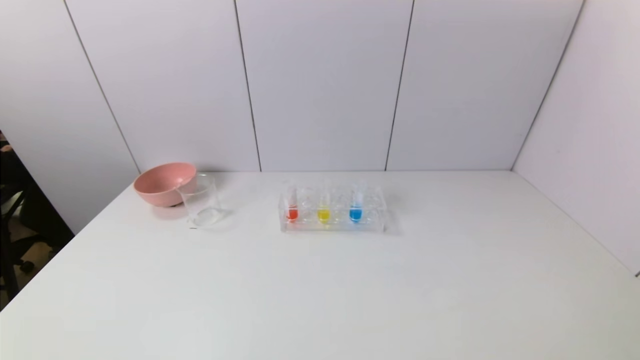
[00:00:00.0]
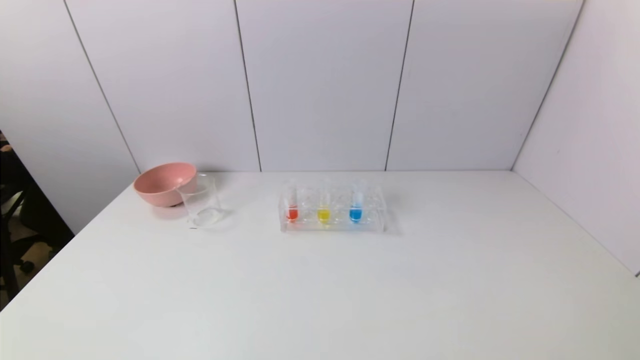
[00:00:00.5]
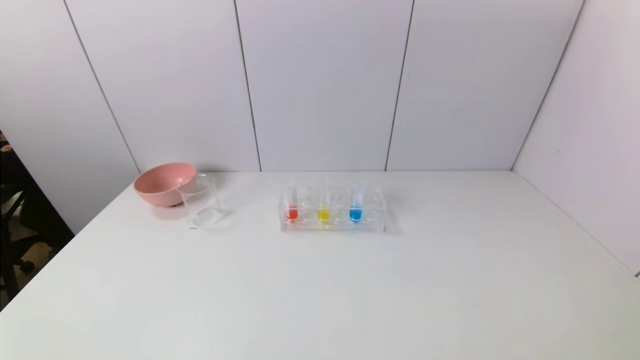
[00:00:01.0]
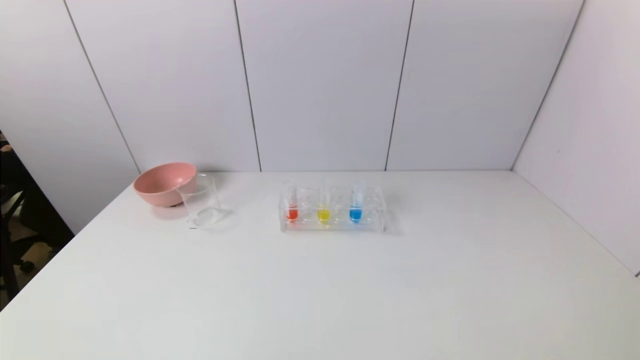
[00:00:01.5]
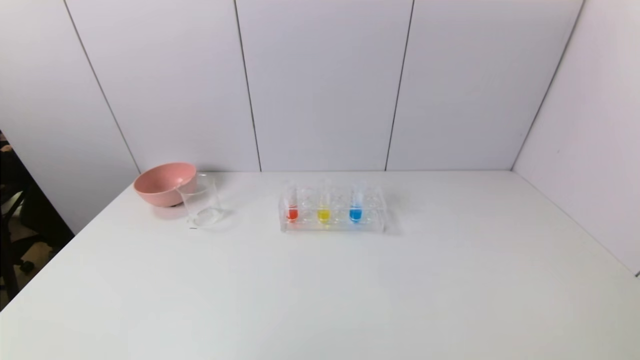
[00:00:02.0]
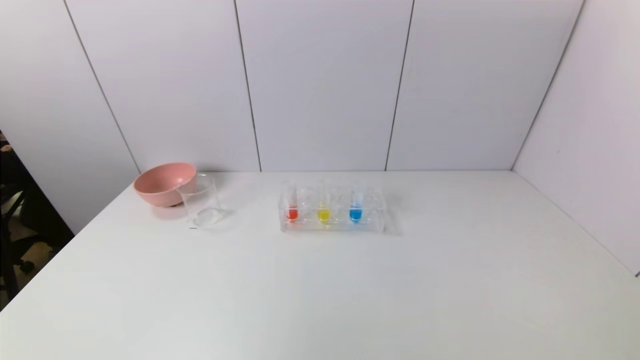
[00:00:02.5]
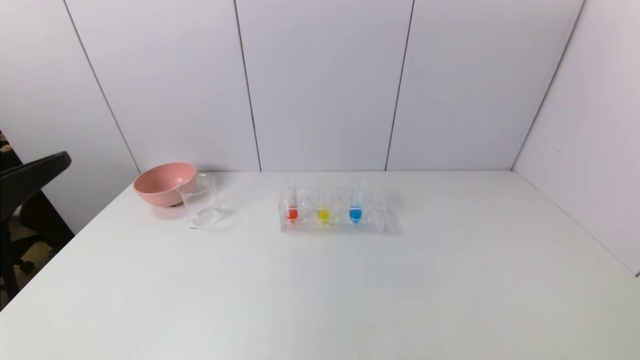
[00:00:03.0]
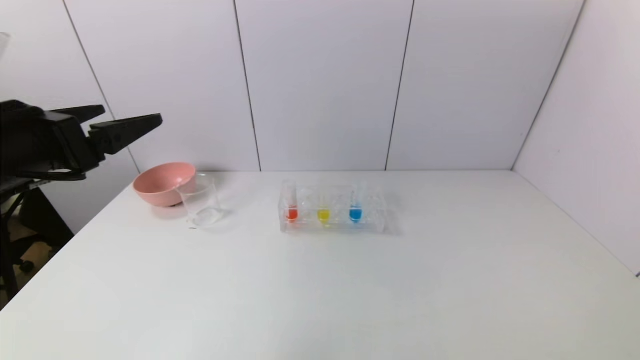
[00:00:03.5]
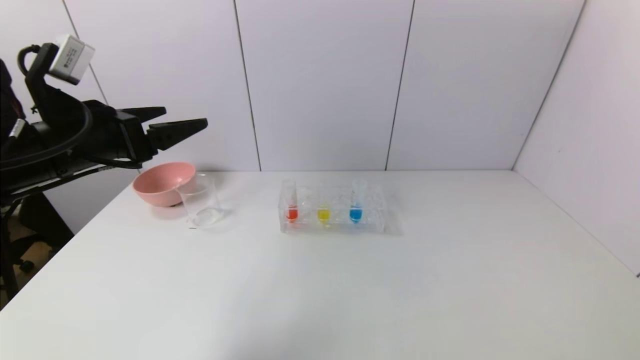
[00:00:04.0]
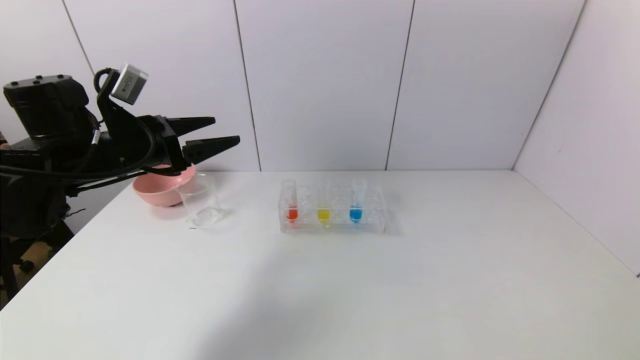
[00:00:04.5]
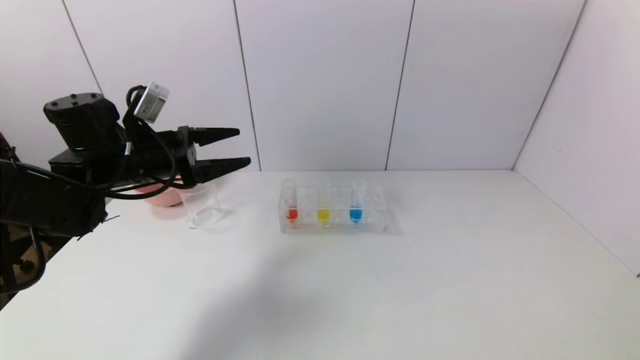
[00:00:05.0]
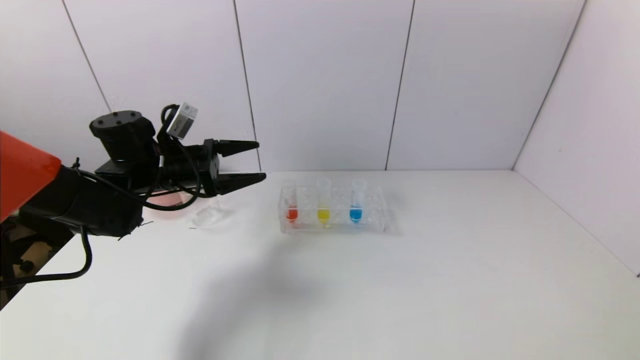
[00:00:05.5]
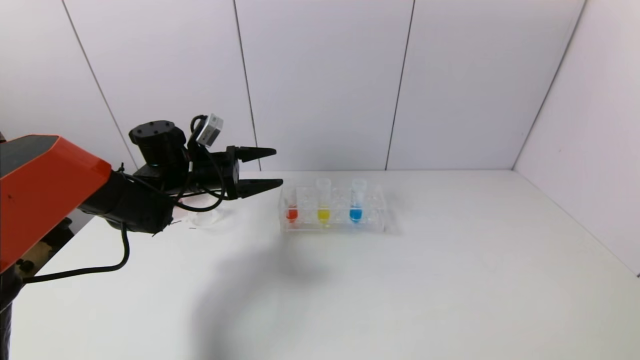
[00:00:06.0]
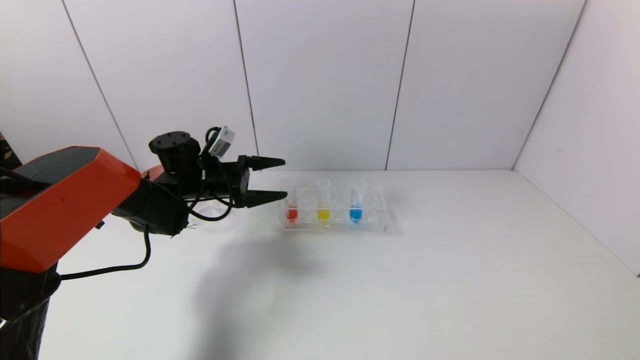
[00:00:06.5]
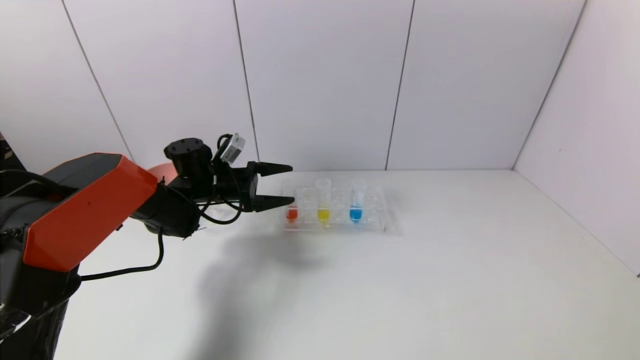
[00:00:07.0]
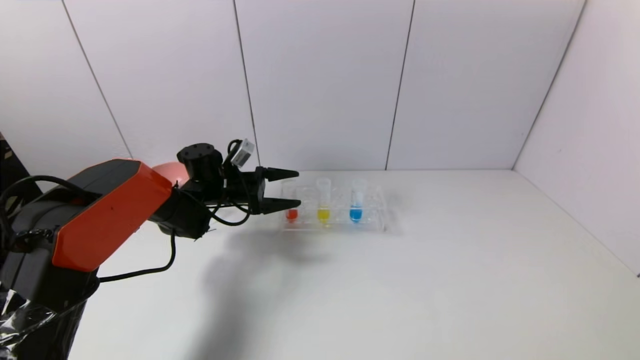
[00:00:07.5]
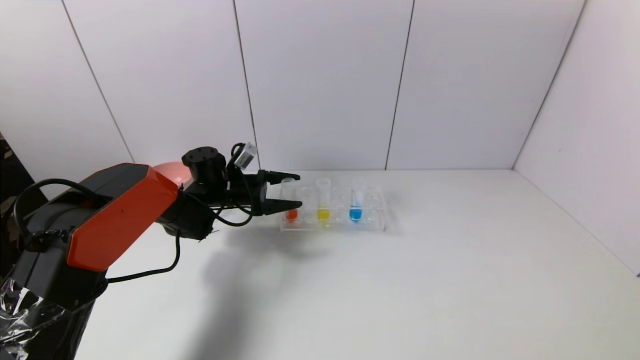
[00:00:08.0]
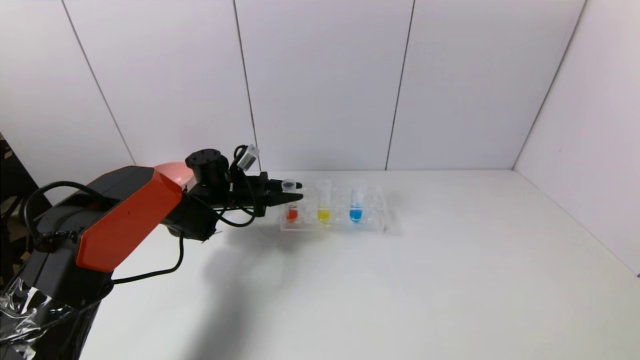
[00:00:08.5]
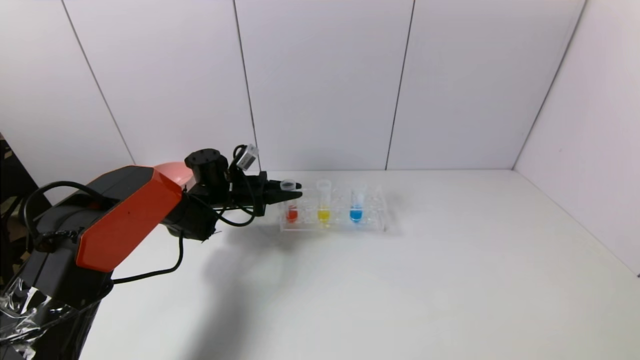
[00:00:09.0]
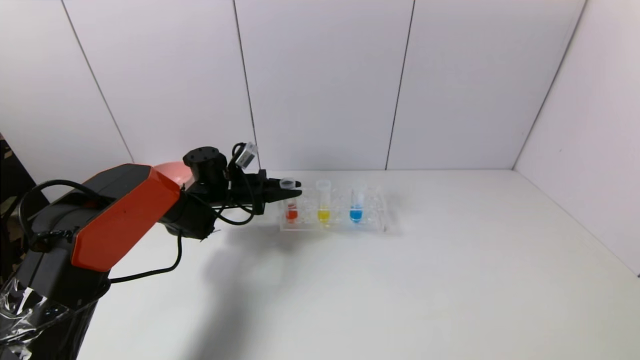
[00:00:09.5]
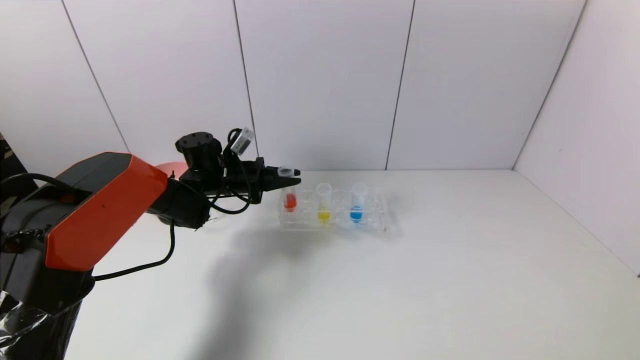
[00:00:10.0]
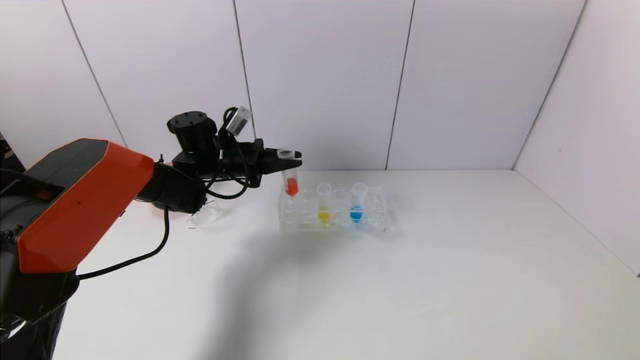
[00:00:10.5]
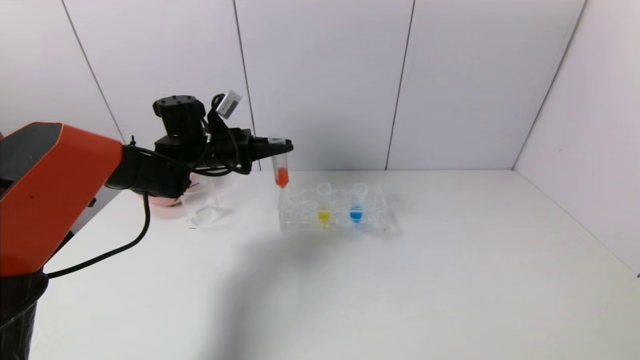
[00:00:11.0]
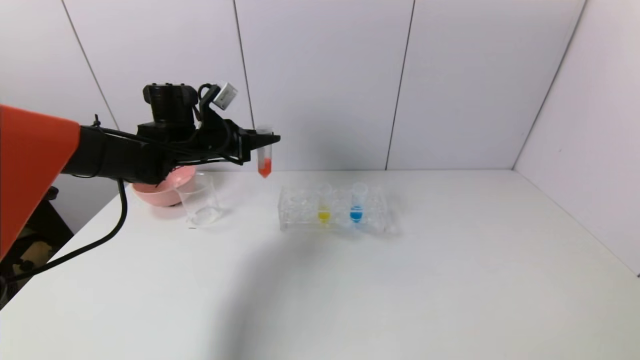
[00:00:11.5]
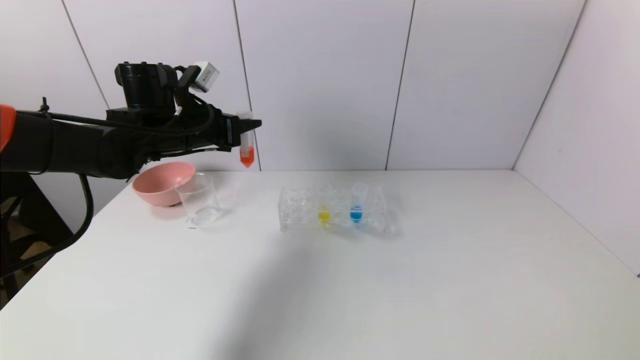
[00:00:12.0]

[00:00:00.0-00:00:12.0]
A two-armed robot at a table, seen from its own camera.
Task of the whole recording: pick up the test tube with red pigment and the test tube with blue pigment by grippers and pour them into the container.
Step, 00:00:00.0 to 00:00:09.0: Grasp the red reagent with the left gripper.
00:00:02.0 to 00:00:04.0: The left gripper is displaced forward by roughly 30 cm.
00:00:04.0 to 00:00:06.0: The left gripper goes roughly 20 cm forward and downward.
00:00:06.0 to 00:00:08.0: The left gripper heads downward and forward, covering about 10 cm.
00:00:08.0 to 00:00:10.0: The left gripper closes.
00:00:10.0 to 00:00:12.0: The left gripper heads upward and backward, covering some 15 cm.

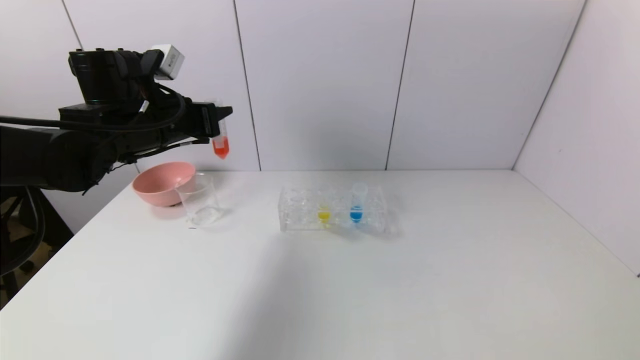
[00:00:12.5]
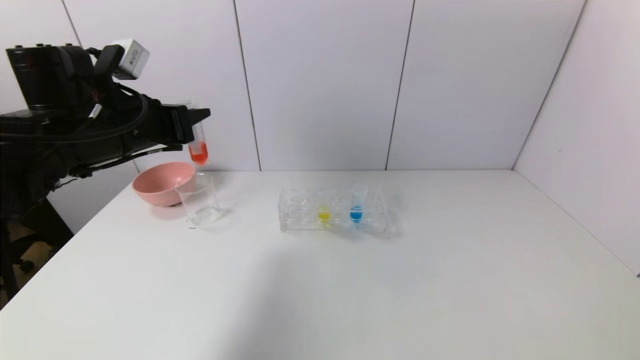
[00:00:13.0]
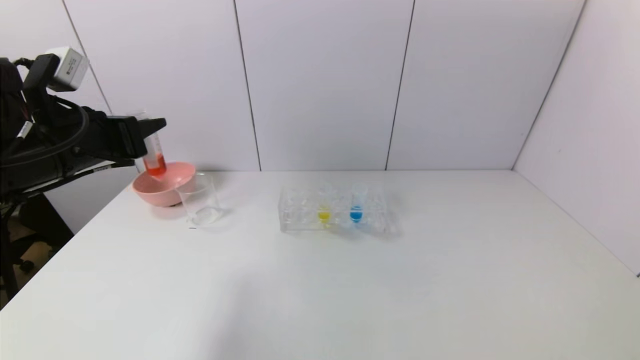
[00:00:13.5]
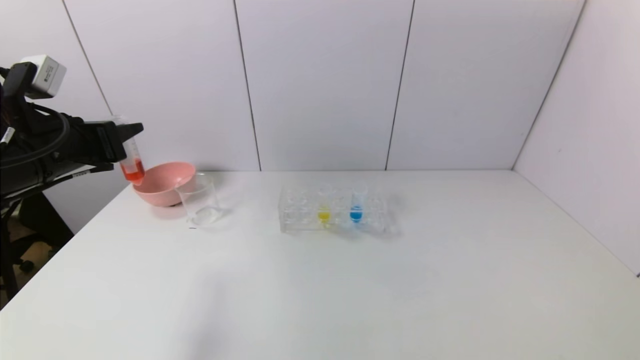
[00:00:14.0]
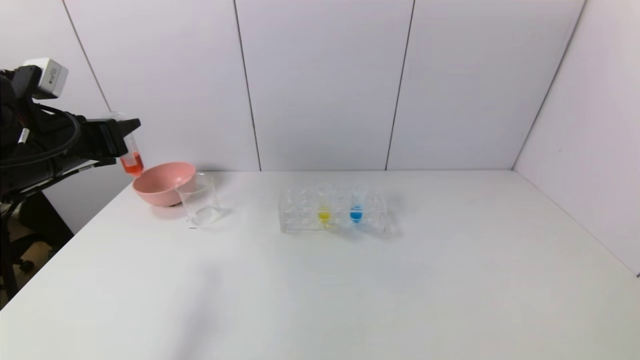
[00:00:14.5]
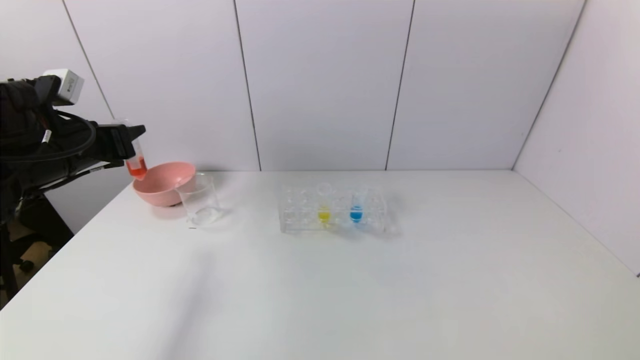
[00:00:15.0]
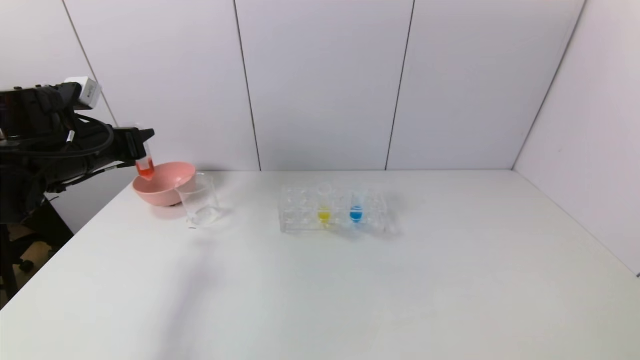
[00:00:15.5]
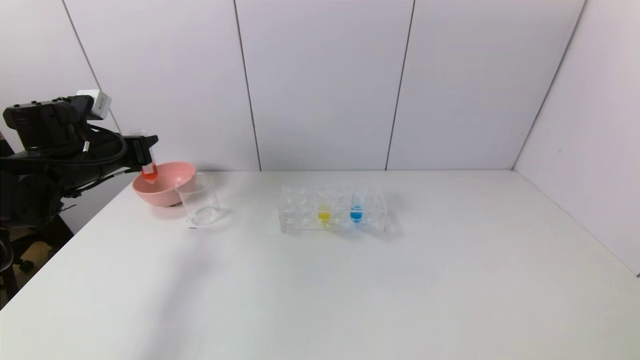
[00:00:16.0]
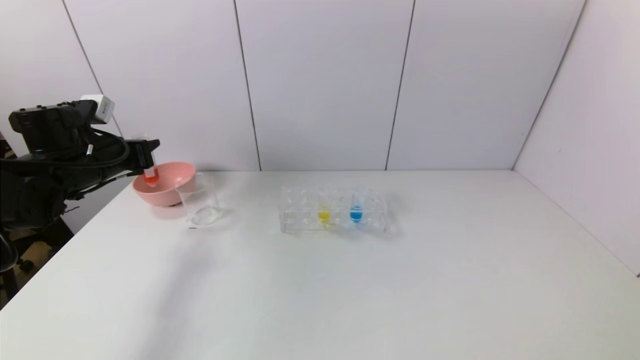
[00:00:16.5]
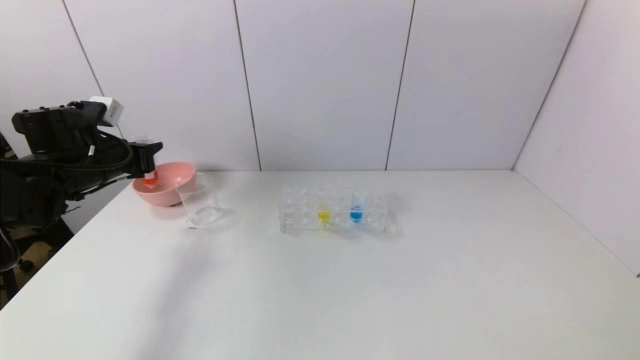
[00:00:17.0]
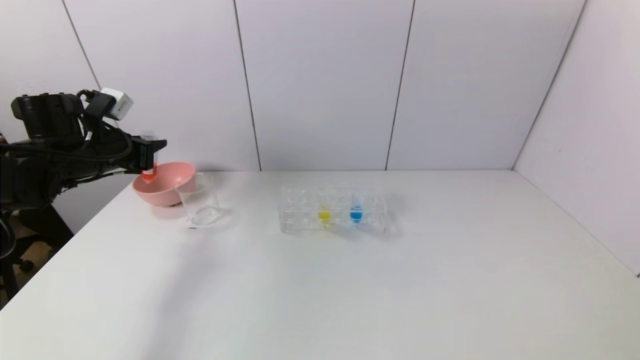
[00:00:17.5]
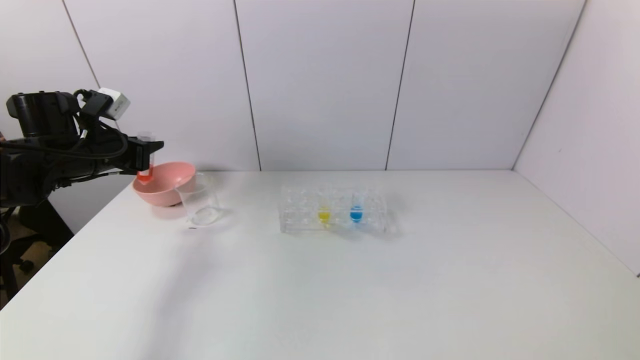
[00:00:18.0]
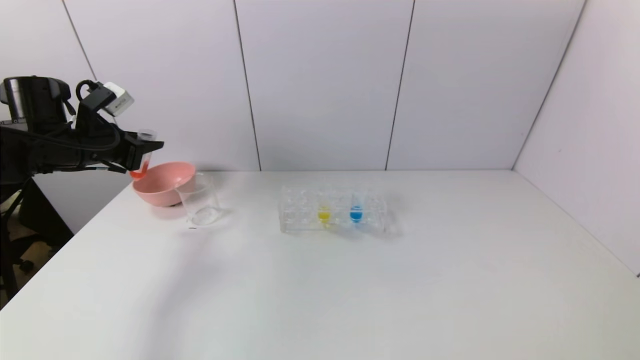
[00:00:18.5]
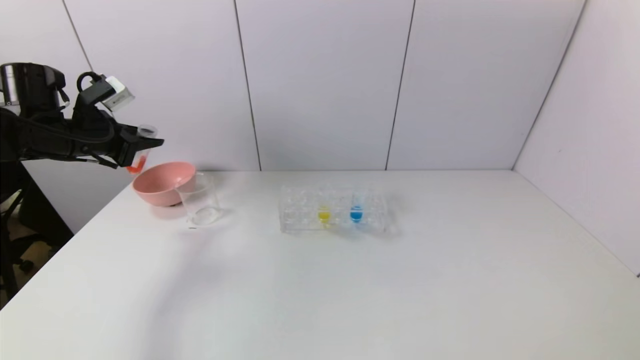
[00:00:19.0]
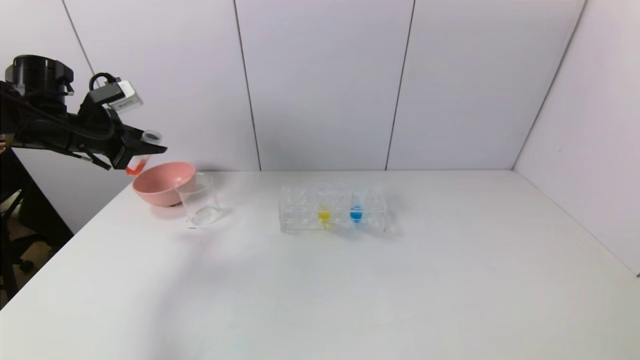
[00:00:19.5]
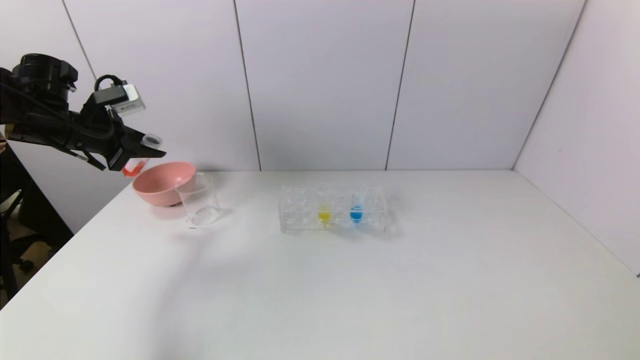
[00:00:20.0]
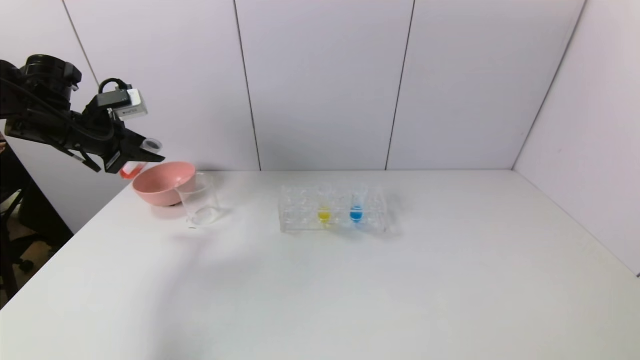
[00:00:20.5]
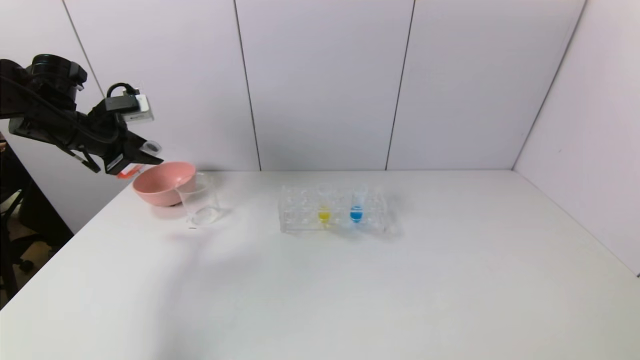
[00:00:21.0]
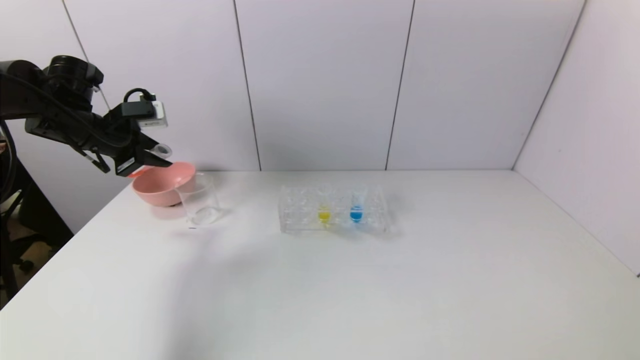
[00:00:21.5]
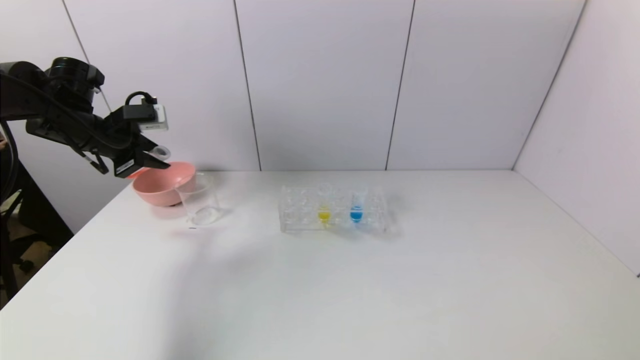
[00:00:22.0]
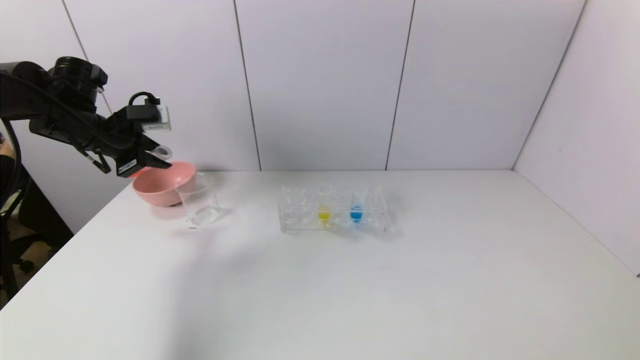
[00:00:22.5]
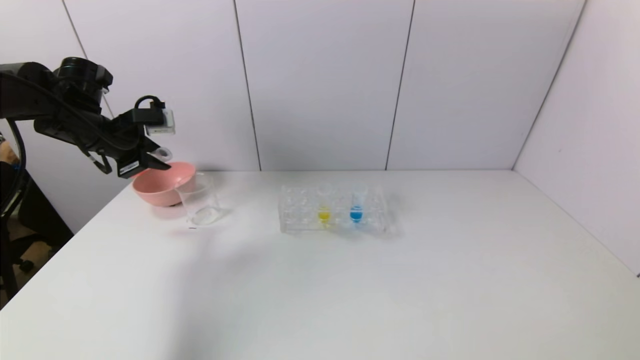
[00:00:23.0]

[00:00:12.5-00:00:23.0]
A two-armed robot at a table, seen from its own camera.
Task of the whole recording: pick up the test tube with red pigment and the test tube with blue pigment by grippers and pour them into the container.
00:00:12.5 to 00:00:14.5: The left gripper moves to the left and backward, roughly 10 cm.
00:00:14.5 to 00:00:16.5: The left gripper travels forward and downward by some 10 cm.
00:00:16.5 to 00:00:19.0: The left gripper moves about 5 cm.
00:00:21.0 to 00:00:23.0: The grippers stay close to where they were, moving slightly.
